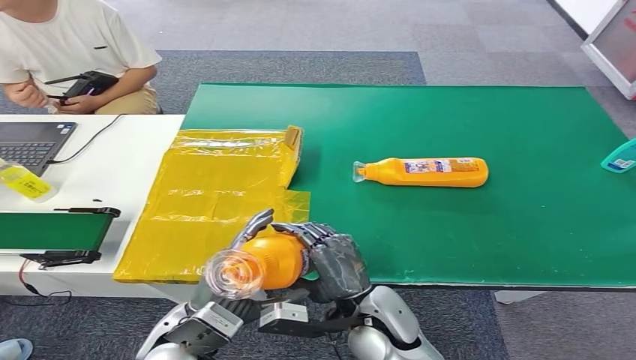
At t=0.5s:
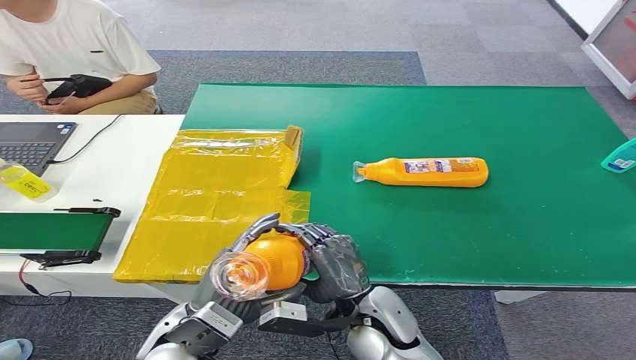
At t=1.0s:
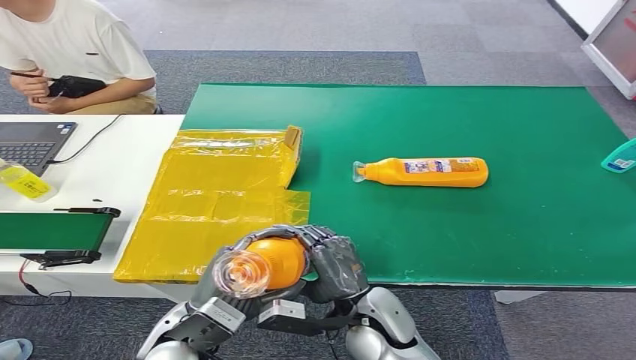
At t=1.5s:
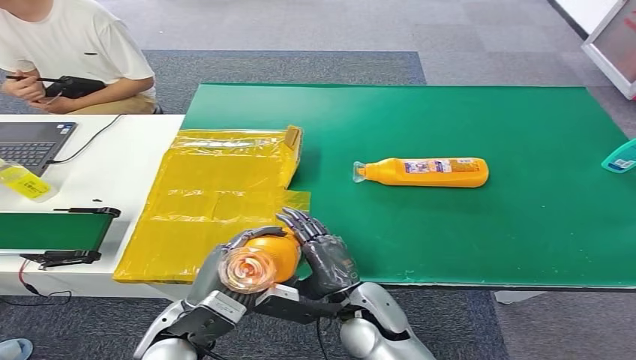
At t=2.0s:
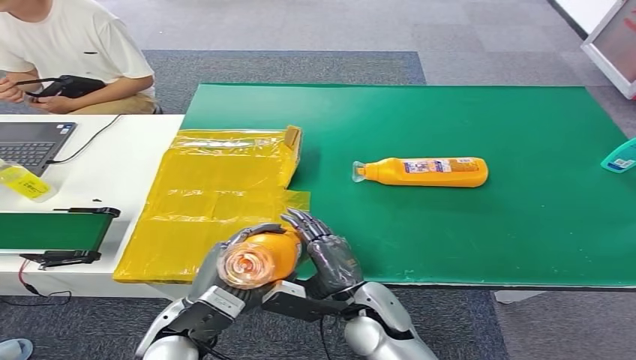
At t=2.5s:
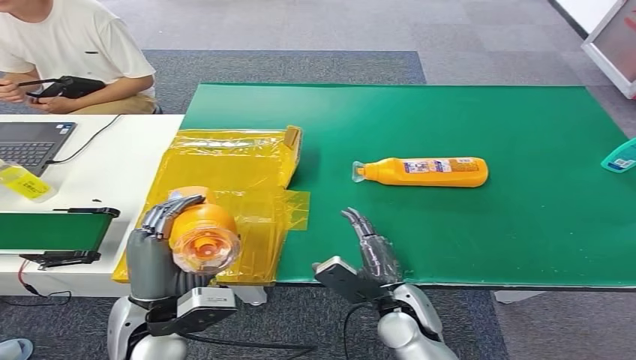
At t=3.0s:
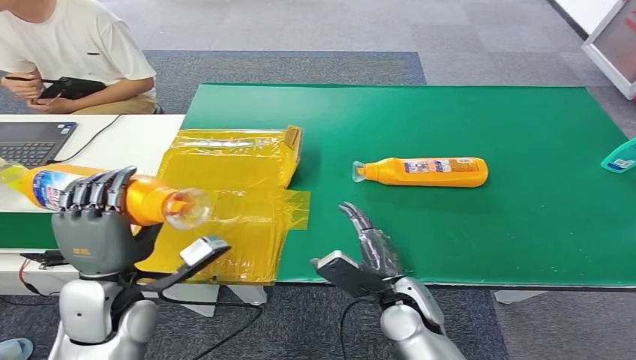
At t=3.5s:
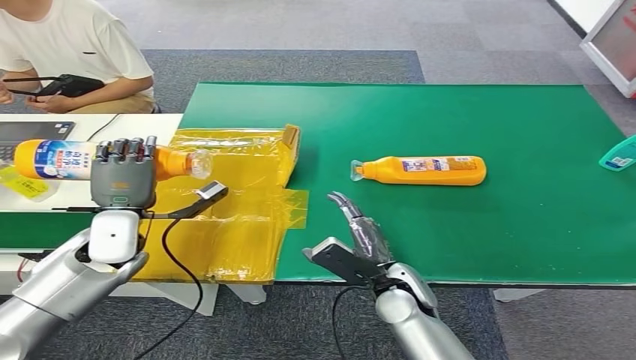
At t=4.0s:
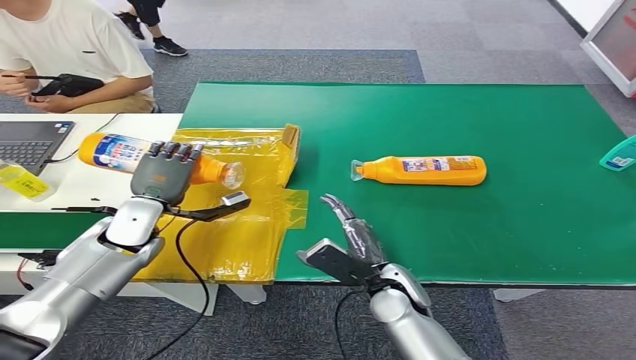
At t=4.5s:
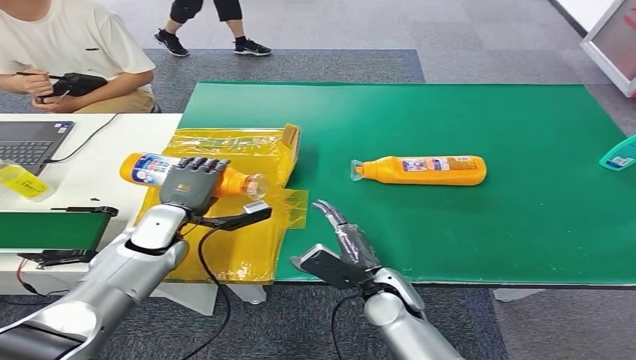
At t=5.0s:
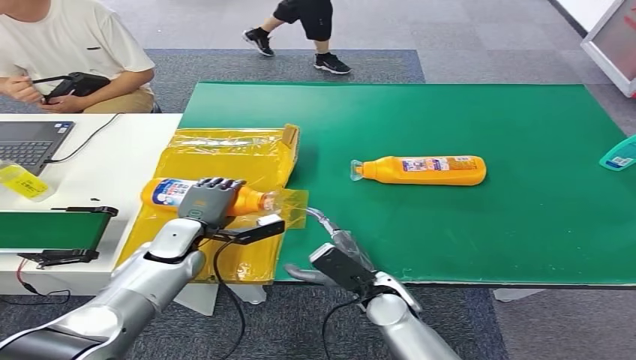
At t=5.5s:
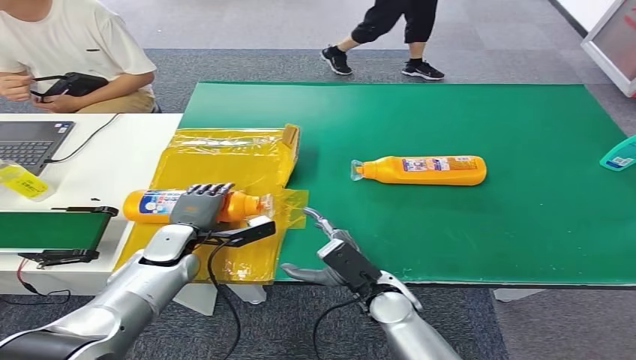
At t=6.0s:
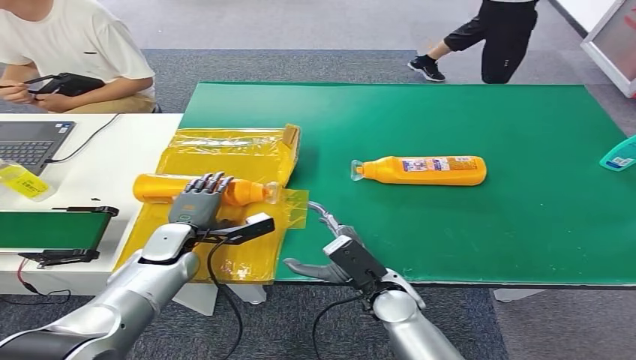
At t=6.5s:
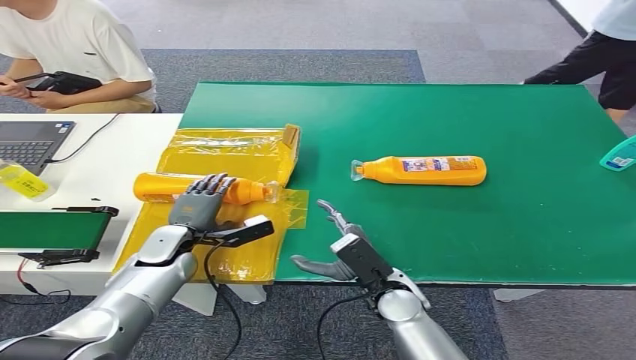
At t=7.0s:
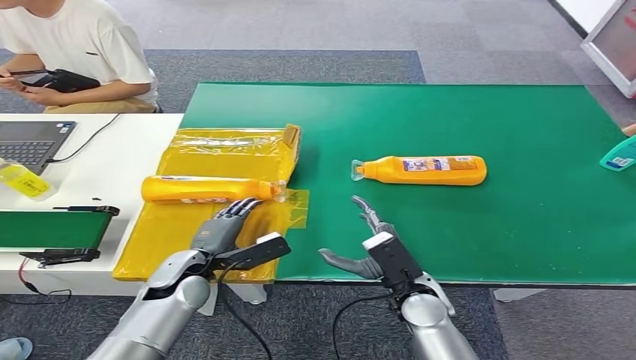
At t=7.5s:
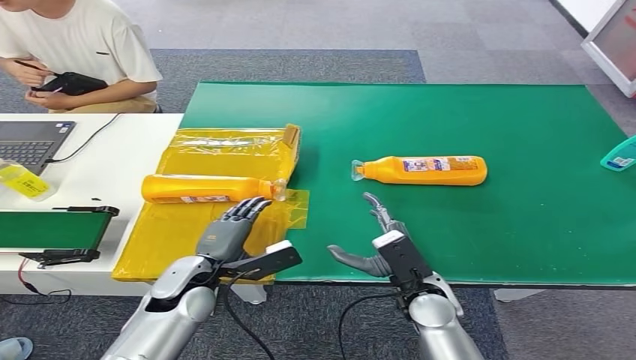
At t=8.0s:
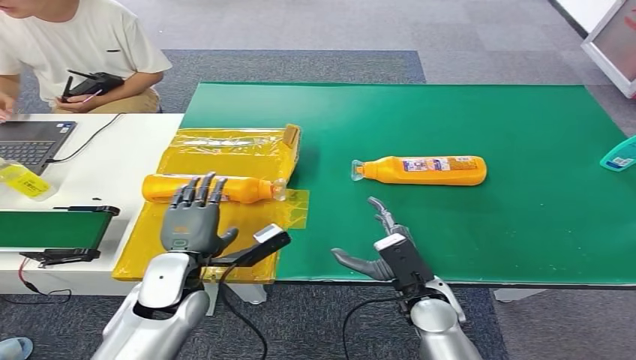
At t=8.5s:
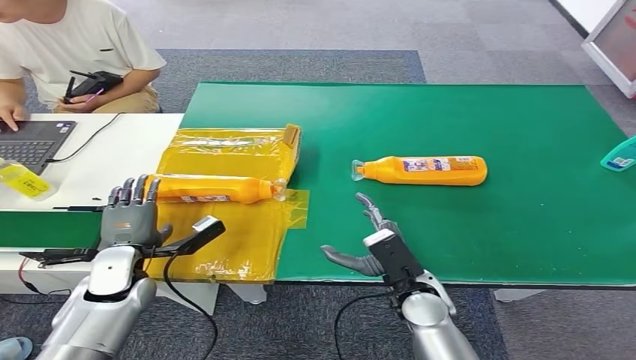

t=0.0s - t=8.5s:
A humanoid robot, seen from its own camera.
Step, t=0.0s - t=8.5s: Turn the bottle to the front side.
t=0.0s - t=2.0s: The hands move only a little.
t=4.0s - t=6.5s: The left hand moves downward, approximately 10 cm.
